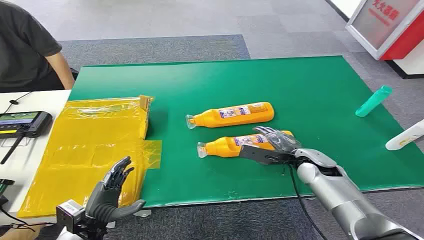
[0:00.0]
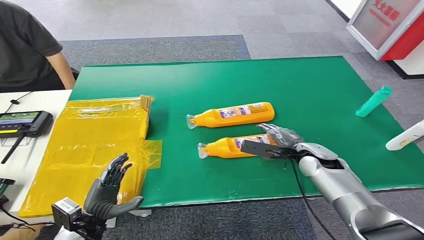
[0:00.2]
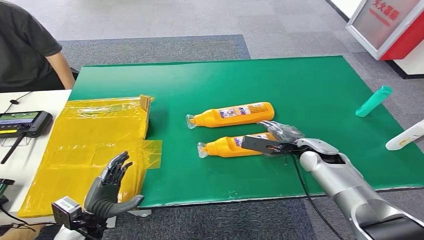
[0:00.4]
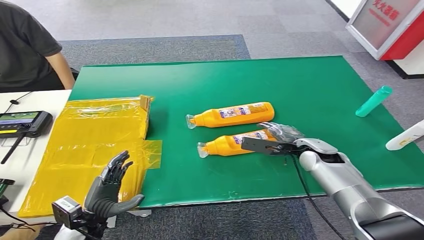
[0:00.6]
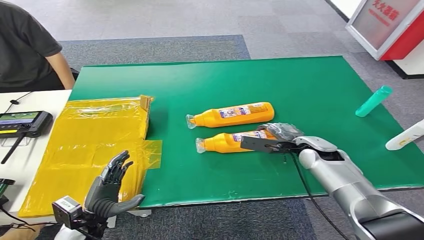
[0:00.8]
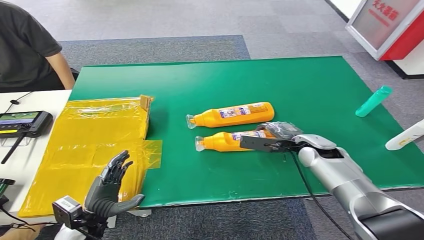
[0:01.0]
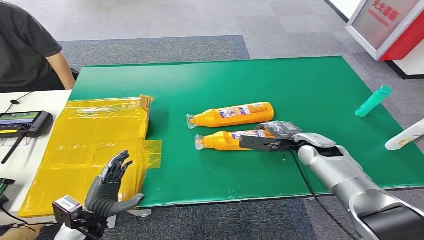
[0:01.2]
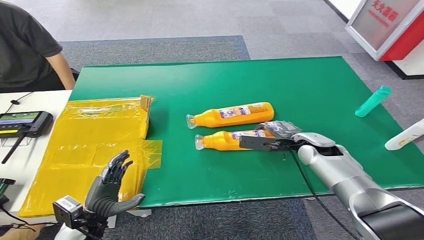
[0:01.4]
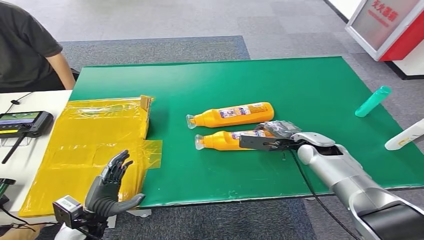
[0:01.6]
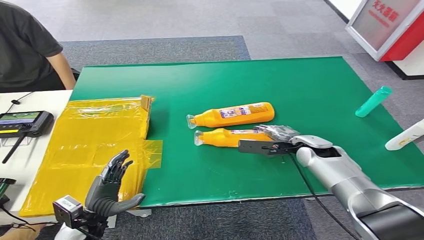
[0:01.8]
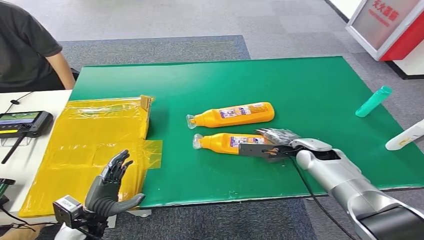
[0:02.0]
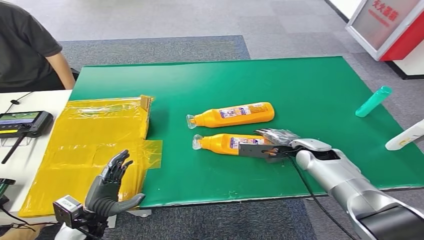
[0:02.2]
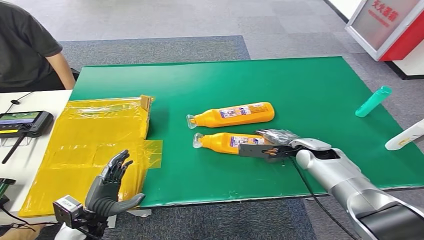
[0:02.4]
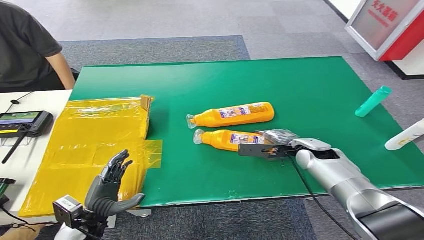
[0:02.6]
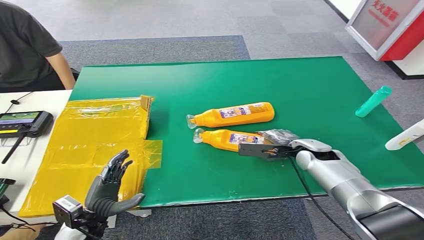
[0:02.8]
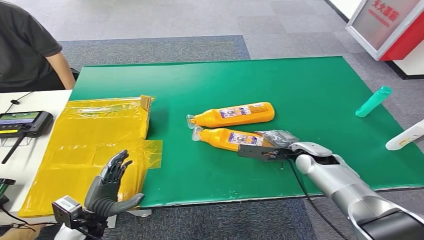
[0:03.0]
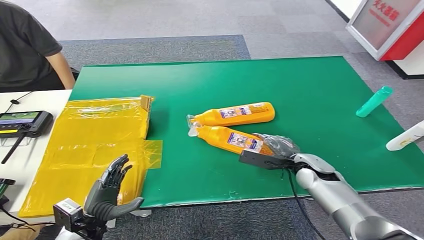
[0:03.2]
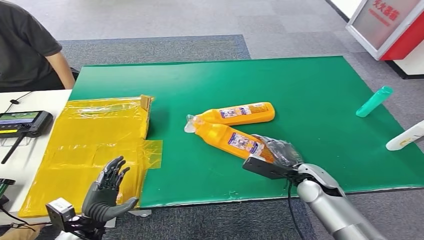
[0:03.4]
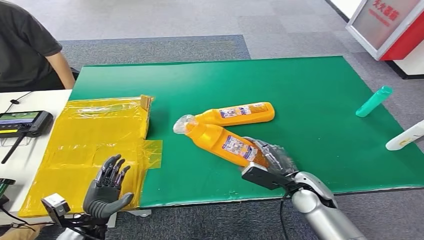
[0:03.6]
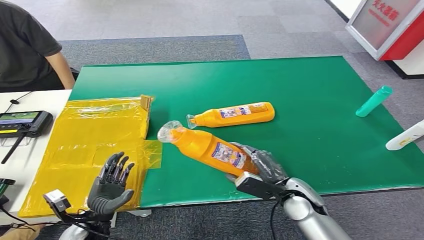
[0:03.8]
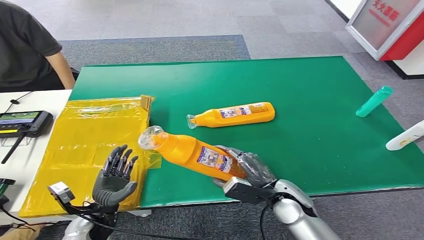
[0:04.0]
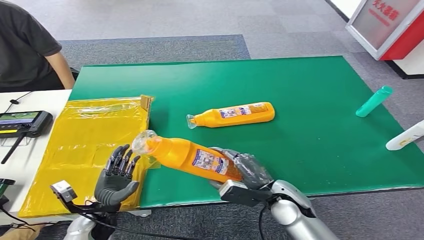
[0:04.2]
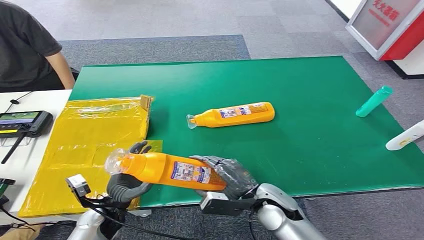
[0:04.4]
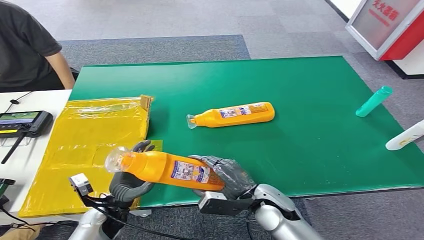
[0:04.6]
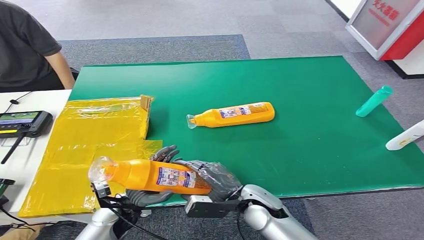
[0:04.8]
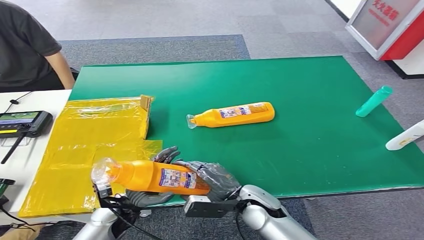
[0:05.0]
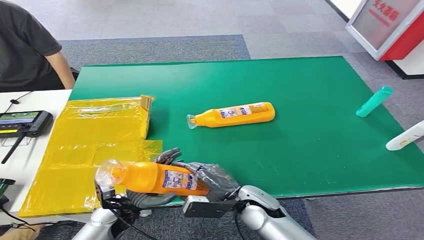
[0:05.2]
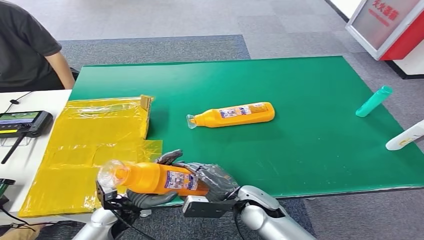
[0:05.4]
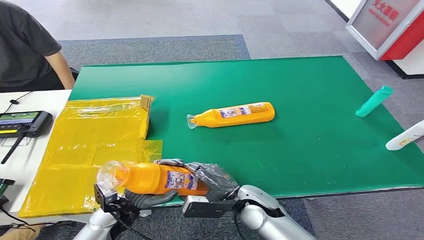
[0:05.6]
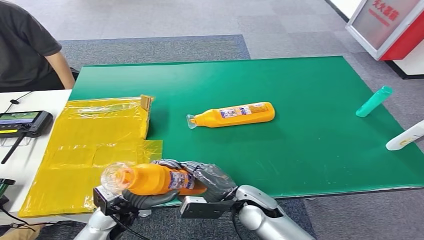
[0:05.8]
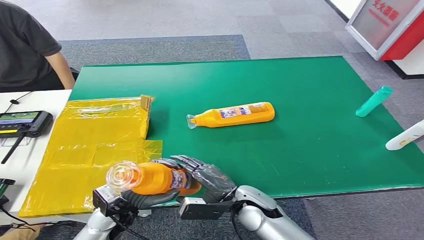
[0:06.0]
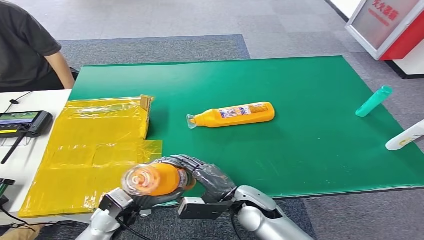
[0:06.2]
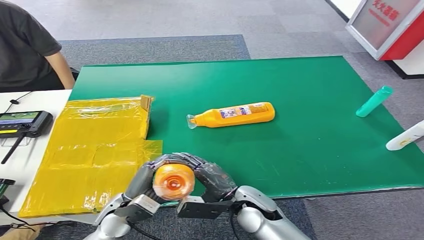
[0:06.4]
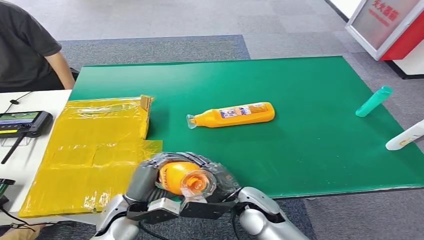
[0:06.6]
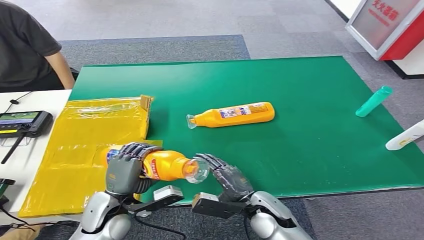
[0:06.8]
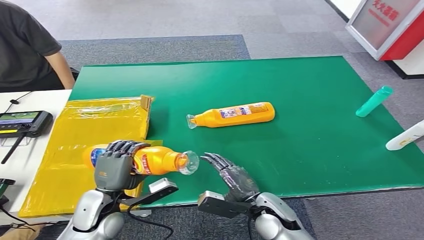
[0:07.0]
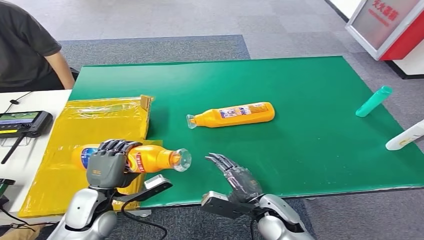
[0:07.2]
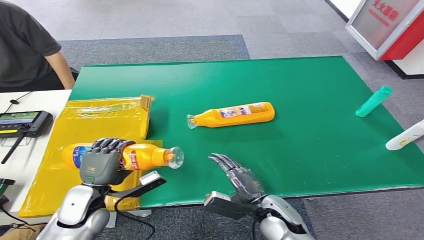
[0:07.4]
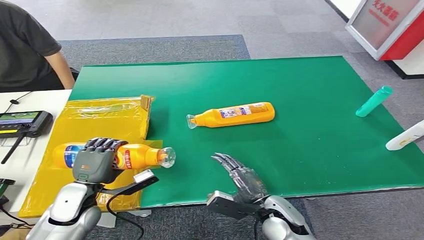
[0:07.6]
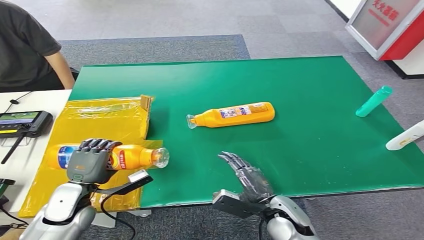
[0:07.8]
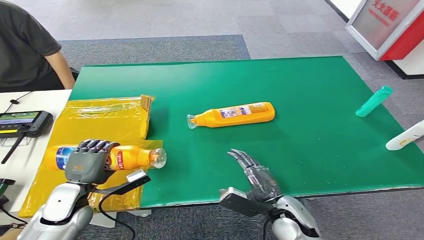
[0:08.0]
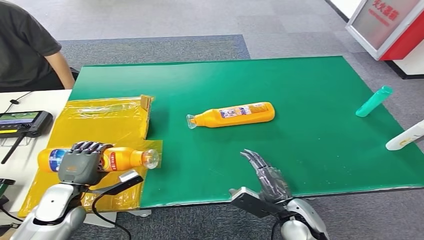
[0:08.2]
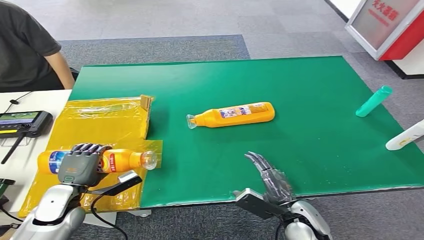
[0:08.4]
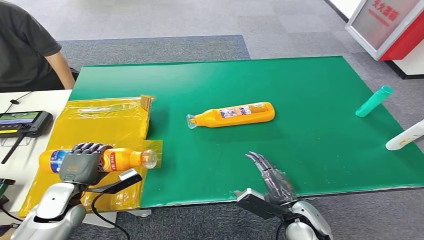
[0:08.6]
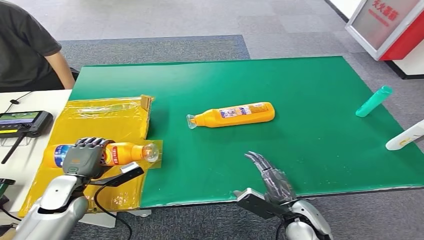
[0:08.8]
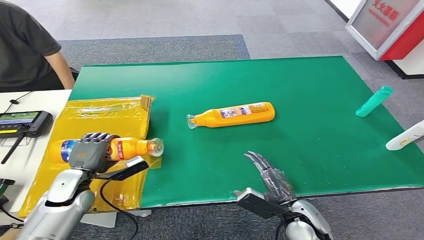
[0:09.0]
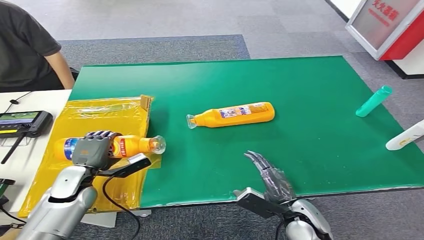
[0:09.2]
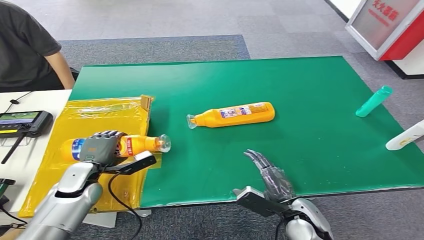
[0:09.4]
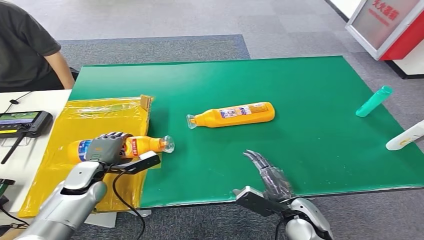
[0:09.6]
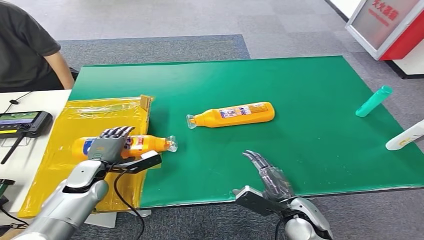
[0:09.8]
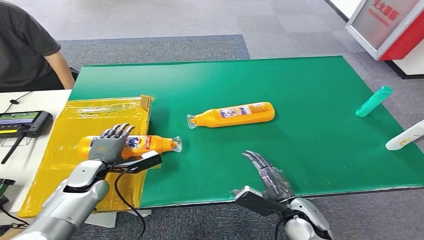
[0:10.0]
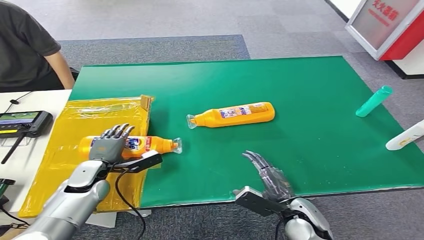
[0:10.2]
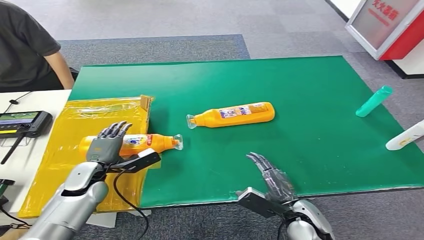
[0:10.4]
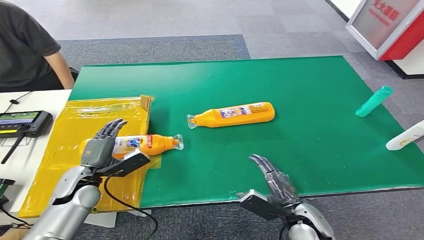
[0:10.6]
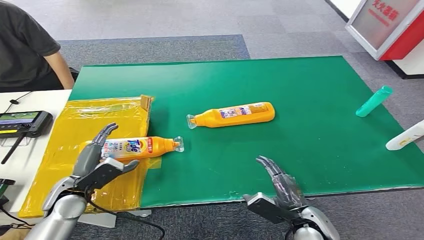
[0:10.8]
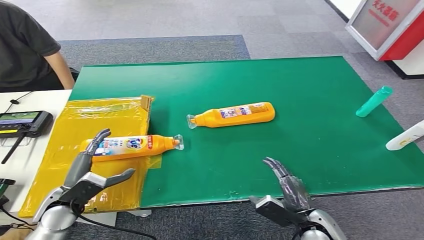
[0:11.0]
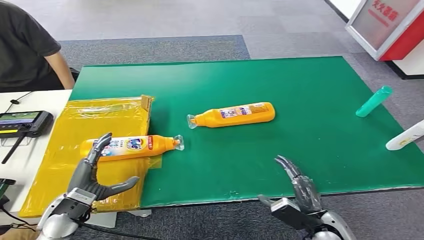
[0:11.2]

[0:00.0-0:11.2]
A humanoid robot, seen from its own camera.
Step, 0:00.0 to 0:04.0: Pick up the bottle from the table.
Step, 0:04.2 to 0:11.0: Turn the bottle to the front side.
0:01.6 to 0:03.2: The right hand travels backward by roughly 5 cm.
0:03.2 to 0:04.8: The left hand travels to the right and forward by approximately 10 cm, while the right hand is displaced to the left and backward by about 20 cm.
0:06.4 to 0:08.0: The left hand moves to the left, some 10 cm, while the right hand goes approximately 5 cm to the right.
0:08.0 to 0:09.6: The left hand shifts about 5 cm forward.
0:09.6 to 0:11.2: The right hand moves to the right, approximately 5 cm. Meanwhile the left hand heads backward, covering approximately 10 cm.
